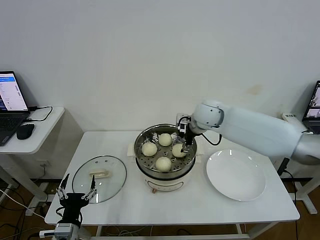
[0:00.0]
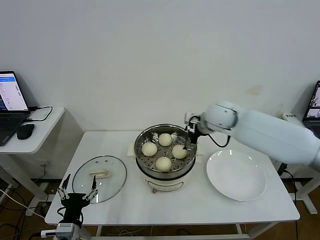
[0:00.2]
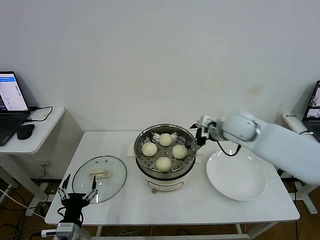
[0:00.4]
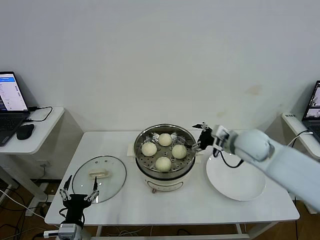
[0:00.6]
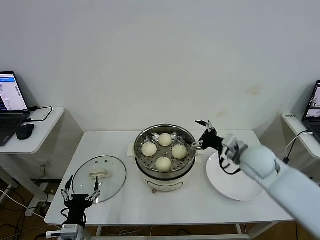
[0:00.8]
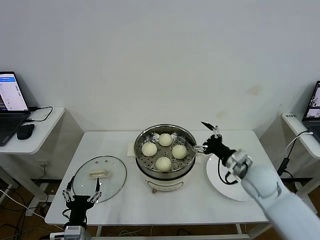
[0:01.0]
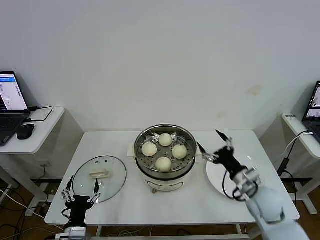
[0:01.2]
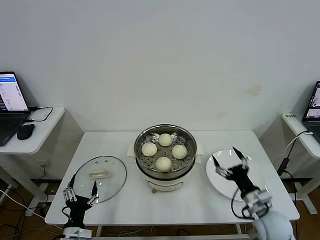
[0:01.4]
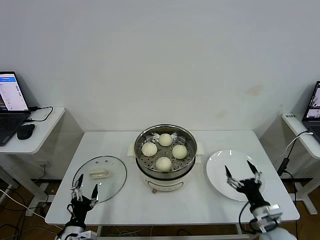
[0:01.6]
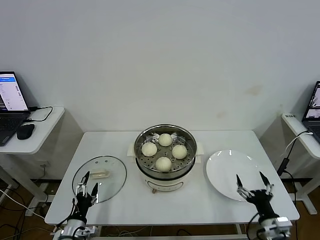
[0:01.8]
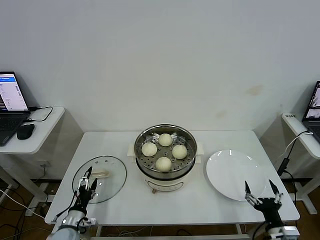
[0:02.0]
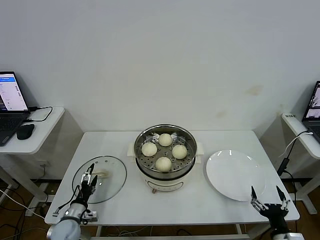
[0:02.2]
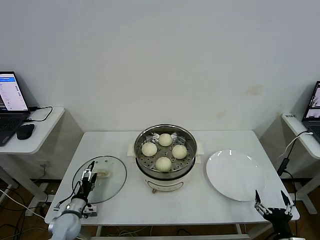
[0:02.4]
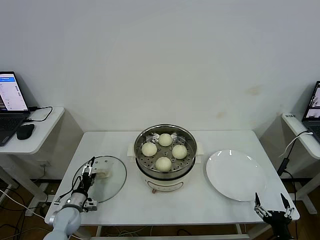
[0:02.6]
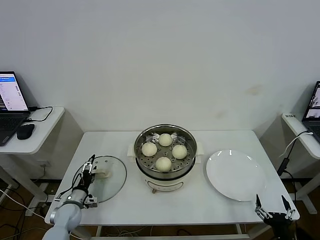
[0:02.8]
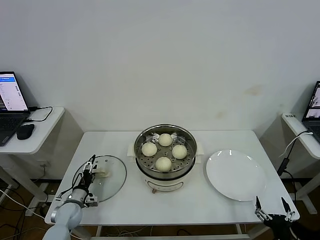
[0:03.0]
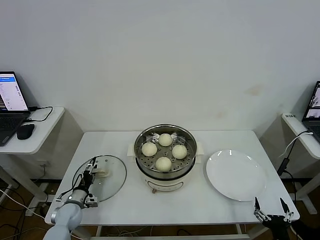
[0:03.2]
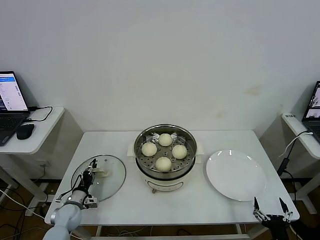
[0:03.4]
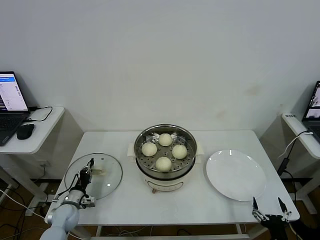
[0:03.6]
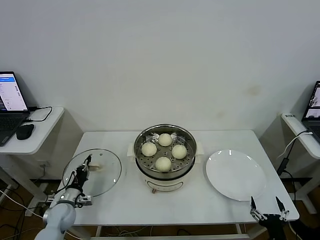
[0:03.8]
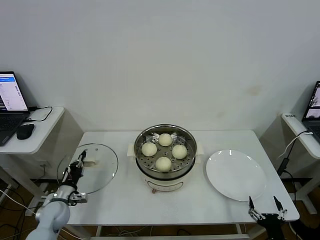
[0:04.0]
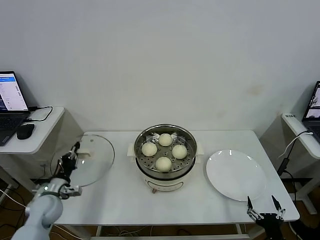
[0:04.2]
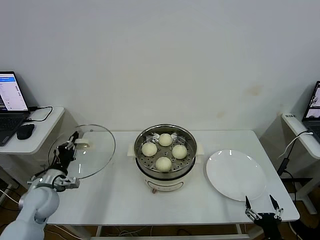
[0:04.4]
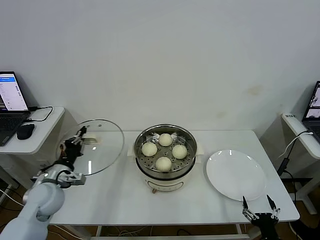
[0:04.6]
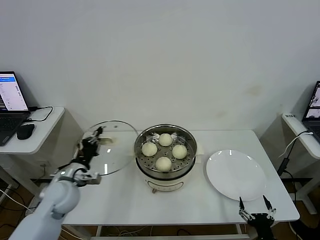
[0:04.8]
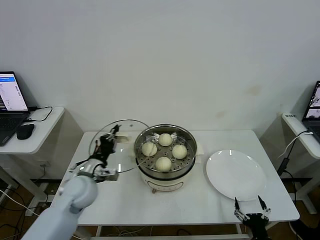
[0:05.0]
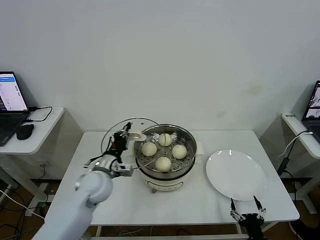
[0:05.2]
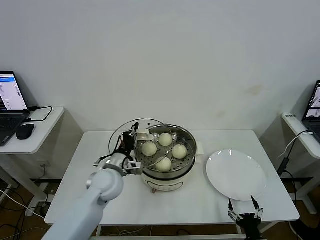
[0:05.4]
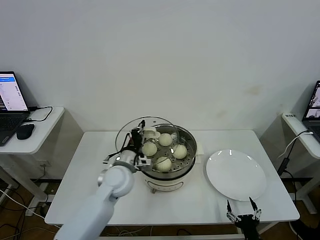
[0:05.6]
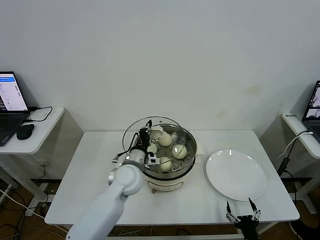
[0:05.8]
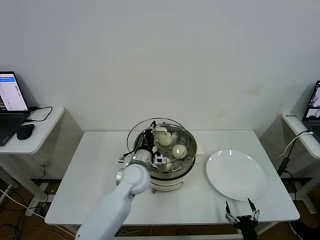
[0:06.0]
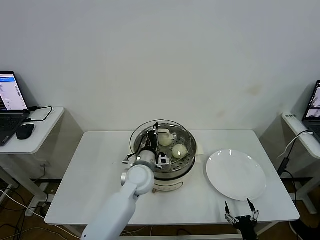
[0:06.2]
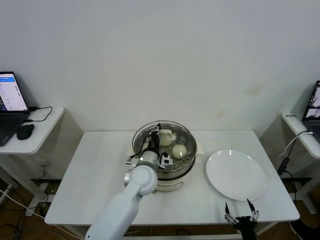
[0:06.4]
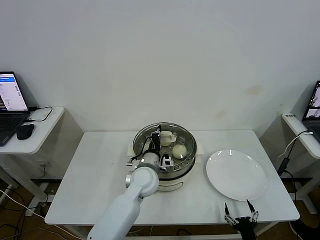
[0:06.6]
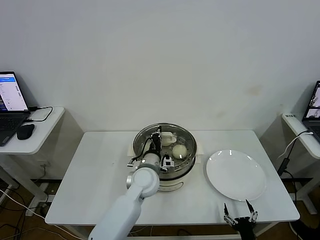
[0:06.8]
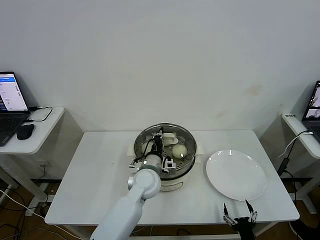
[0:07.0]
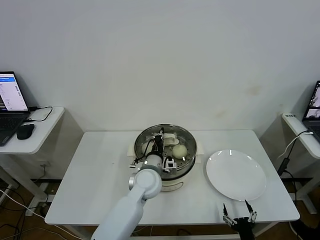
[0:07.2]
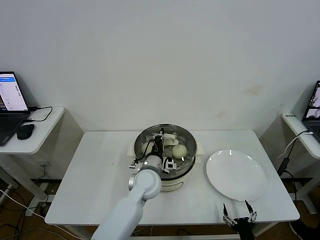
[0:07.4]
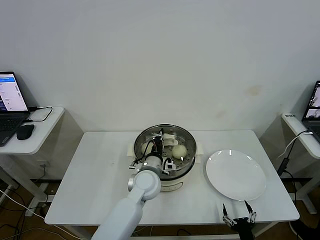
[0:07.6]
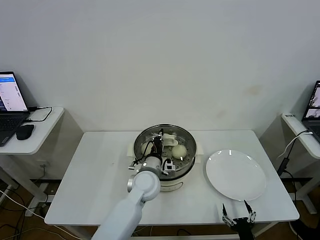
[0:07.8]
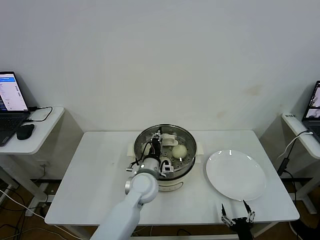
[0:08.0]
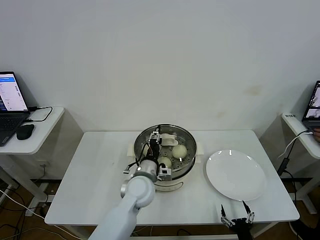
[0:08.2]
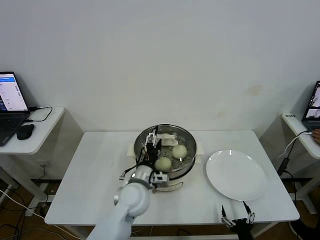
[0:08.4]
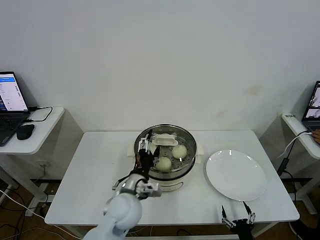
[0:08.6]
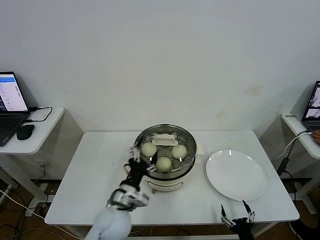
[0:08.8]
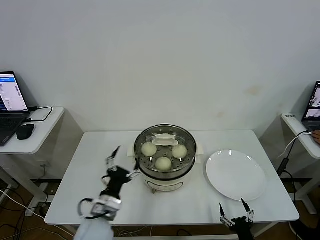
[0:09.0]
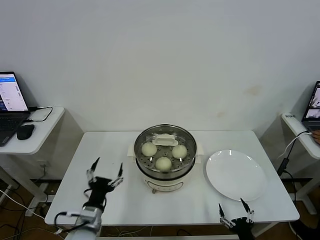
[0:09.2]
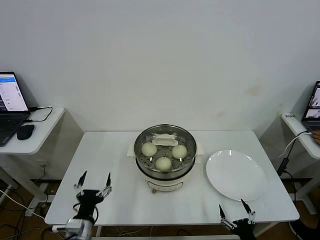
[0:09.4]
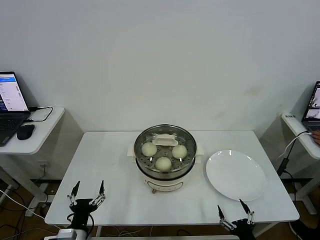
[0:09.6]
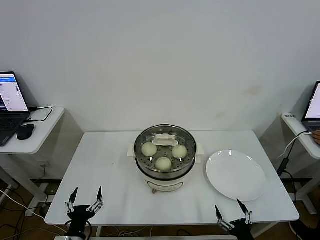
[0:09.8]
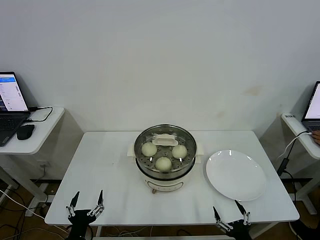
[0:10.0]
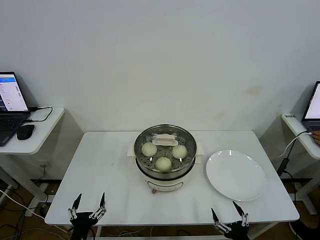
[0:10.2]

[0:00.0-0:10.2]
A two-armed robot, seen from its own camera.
Step, 0:00.2 to 0:03.8: Grasp the pot lid with left gripper.
Step, 0:04.0 to 0:08.6: Place the pot lid on the steamer with left gripper.
0:00.0 to 0:01.4: The right gripper moves backward, downward and to the right, about 35 cm; the left gripper heads downward, covering some 5 cm.
0:01.4 to 0:03.0: The left gripper is displaced forward, to the left and downward by roughly 20 cm. The right gripper moves backward and downward, about 15 cm.
0:03.0 to 0:04.4: The left gripper goes about 15 cm upward, and closes.
0:04.4 to 0:05.8: The right gripper moves about 5 cm; the left gripper moves to the right, some 25 cm.
0:05.8 to 0:07.2: The left gripper goes roughly 5 cm to the right.
0:07.2 to 0:08.8: The left gripper goes about 15 cm backward and to the left, and opens.
0:08.8 to 0:10.2: The left gripper heads backward, to the left and downward, covering approximately 25 cm; the right gripper travels upward by about 5 cm.
